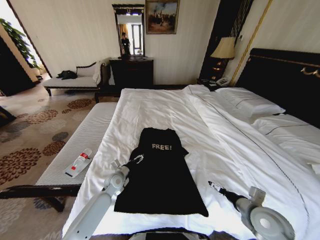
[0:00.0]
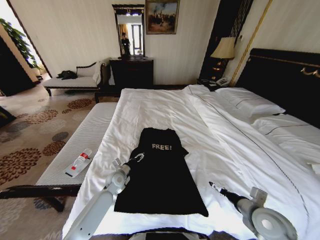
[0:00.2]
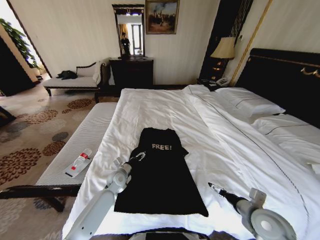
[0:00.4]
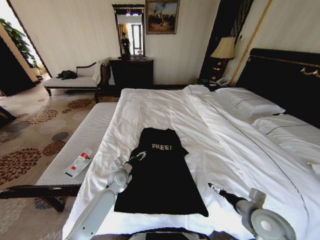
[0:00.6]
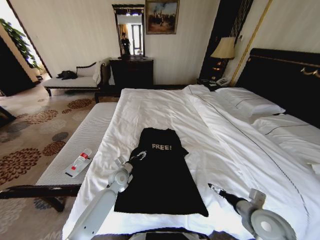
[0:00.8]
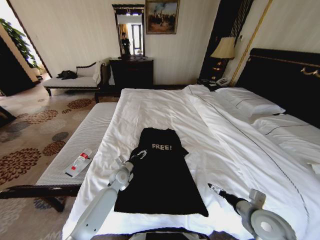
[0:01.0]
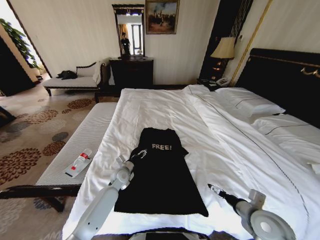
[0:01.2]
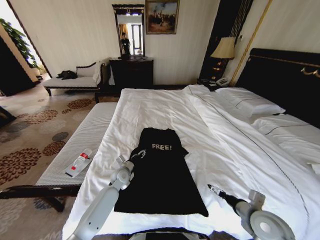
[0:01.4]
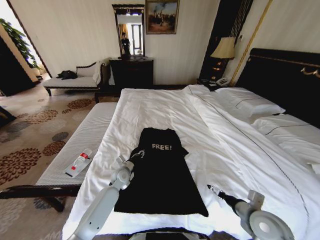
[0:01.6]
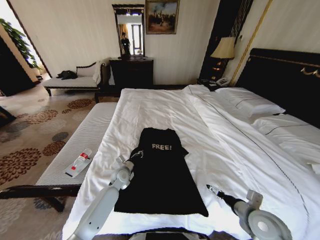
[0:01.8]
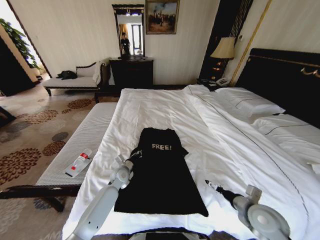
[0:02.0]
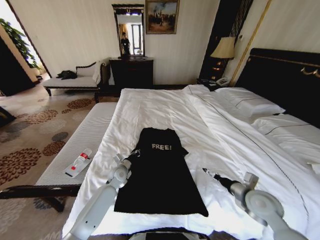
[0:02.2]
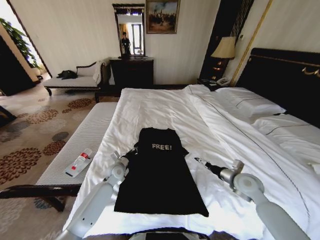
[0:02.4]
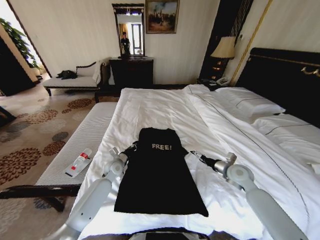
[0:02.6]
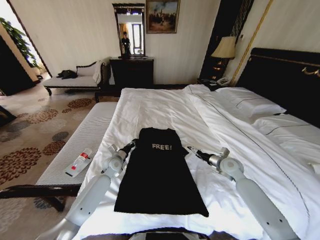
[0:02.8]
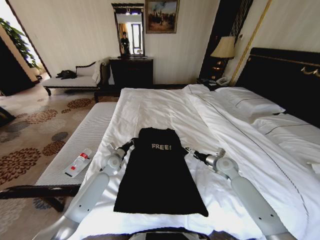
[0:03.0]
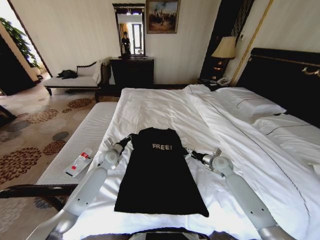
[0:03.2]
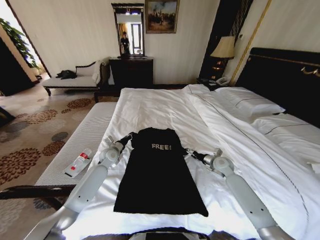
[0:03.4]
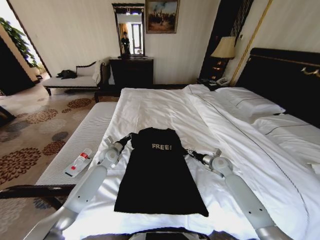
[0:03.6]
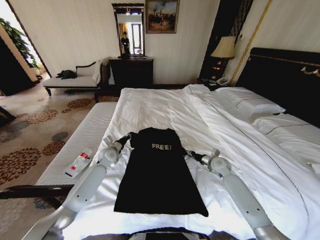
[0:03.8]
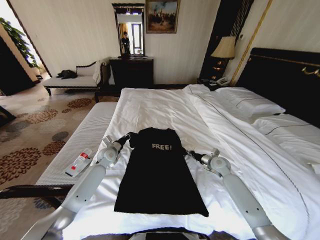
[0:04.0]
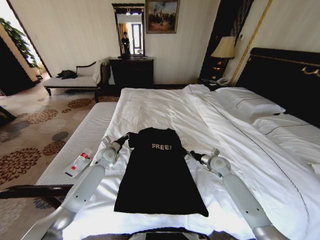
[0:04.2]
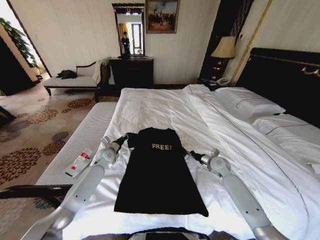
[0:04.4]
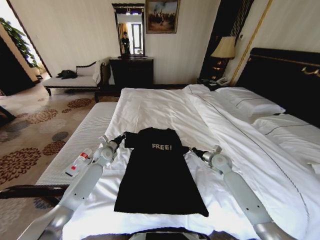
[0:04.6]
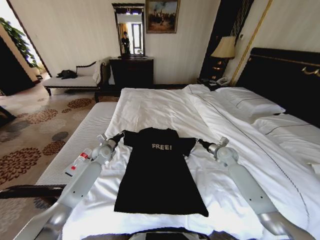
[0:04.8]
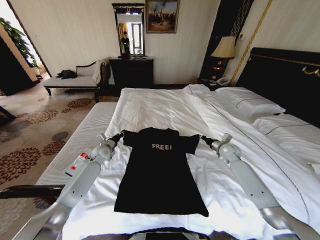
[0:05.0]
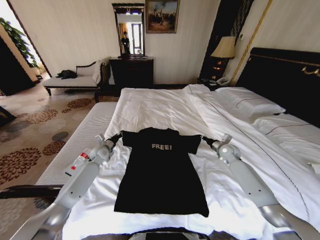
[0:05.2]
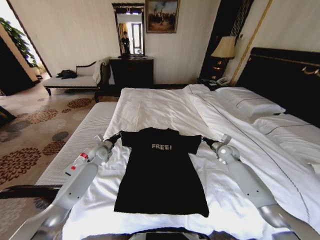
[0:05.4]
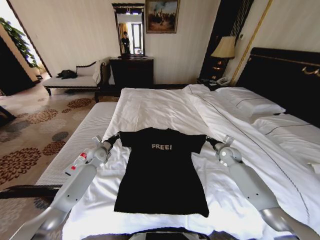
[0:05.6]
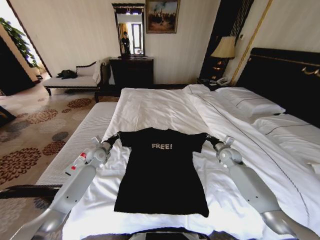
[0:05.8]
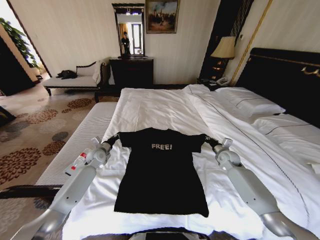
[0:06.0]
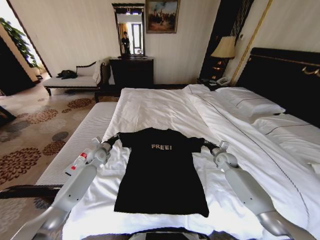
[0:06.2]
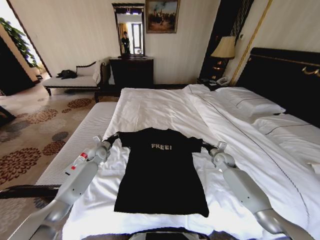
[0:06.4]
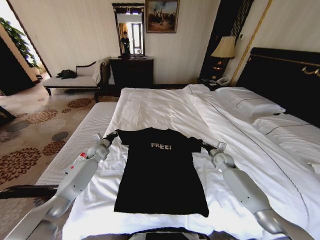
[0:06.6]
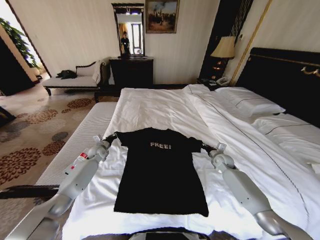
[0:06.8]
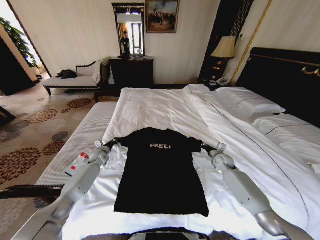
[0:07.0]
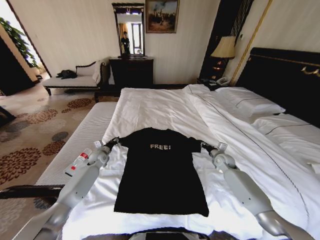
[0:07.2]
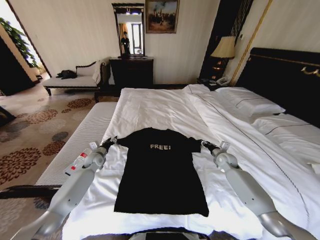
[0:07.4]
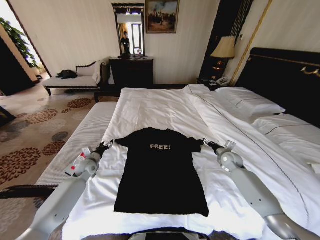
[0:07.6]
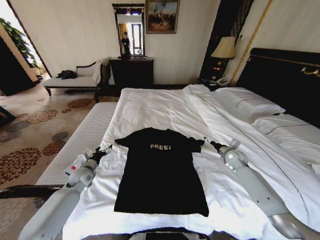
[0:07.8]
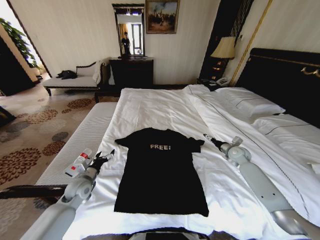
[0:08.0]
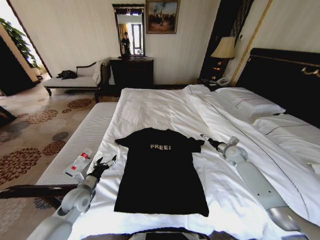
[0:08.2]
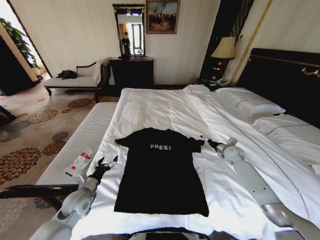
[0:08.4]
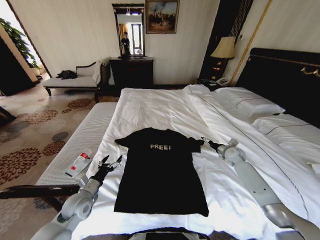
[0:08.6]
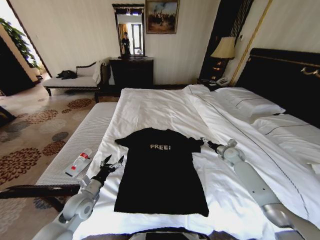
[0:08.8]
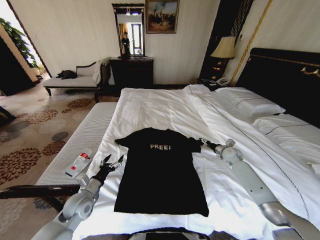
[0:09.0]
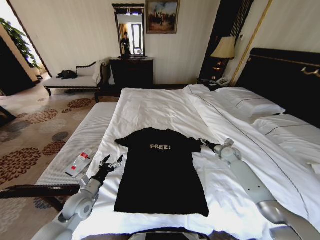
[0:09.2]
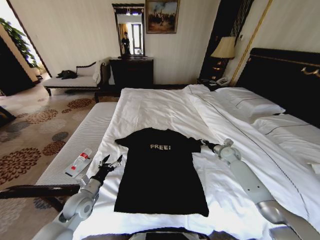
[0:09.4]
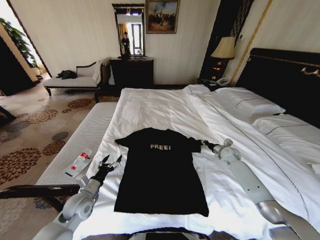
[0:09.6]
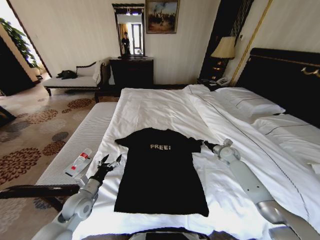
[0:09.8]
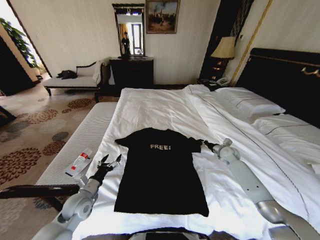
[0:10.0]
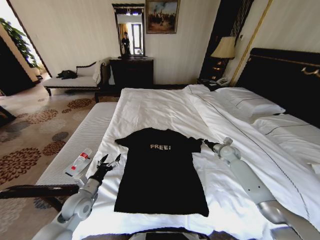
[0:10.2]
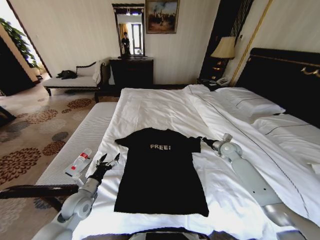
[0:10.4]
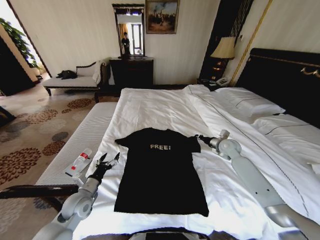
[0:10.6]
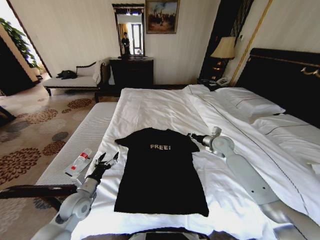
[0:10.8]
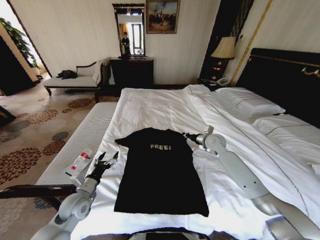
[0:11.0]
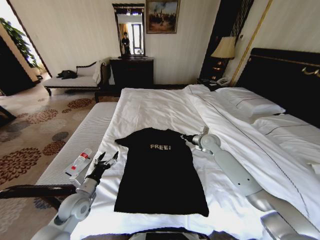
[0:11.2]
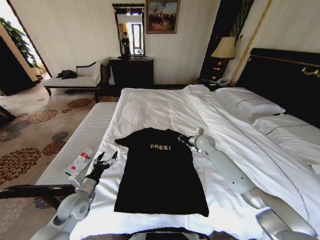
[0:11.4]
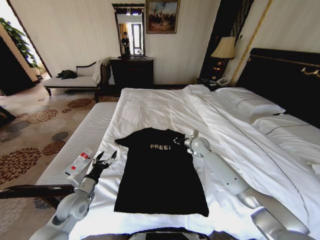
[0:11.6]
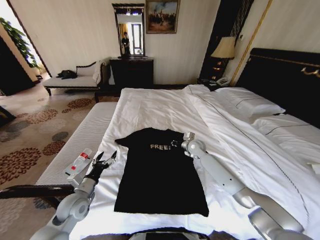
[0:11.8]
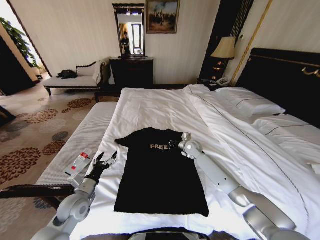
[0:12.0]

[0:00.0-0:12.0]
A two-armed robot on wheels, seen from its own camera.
Task of the whole recording: Fold the clothes on the bed.
0:00.0 to 0:01.6: The left gripper closes its fingers.
0:01.6 to 0:03.0: The right gripper is displaced forward by roughly 25 cm. The left gripper moves upward, to the left and forward, about 10 cm, and closes up.
0:03.0 to 0:04.4: The right gripper closes up. Meanwhile the left gripper moves roughly 5 cm.
0:04.4 to 0:06.0: The right gripper travels to the right by approximately 5 cm.
0:06.0 to 0:07.6: The right gripper opens; the left gripper moves approximately 5 cm, and opens.
0:07.6 to 0:09.0: The left gripper goes about 15 cm backward.
0:09.0 to 0:10.4: The right gripper shifts by approximately 5 cm, and closes its fingers.
0:10.4 to 0:12.0: The right gripper shifts roughly 20 cm to the left.

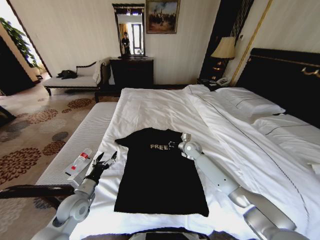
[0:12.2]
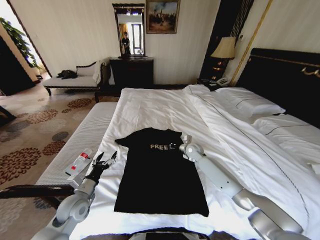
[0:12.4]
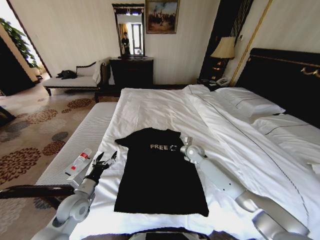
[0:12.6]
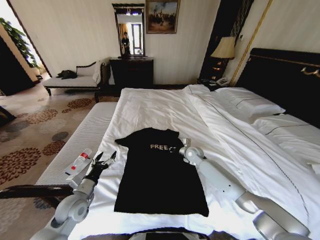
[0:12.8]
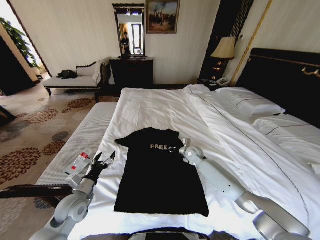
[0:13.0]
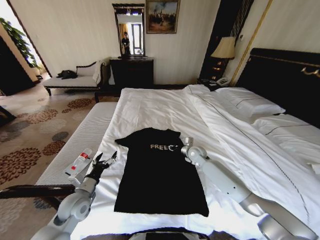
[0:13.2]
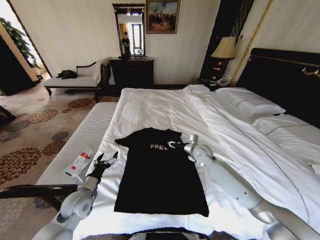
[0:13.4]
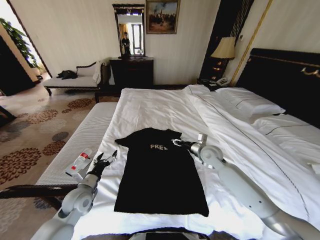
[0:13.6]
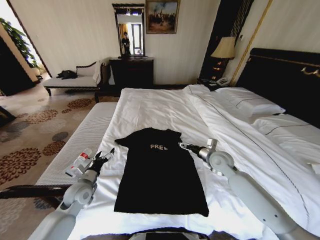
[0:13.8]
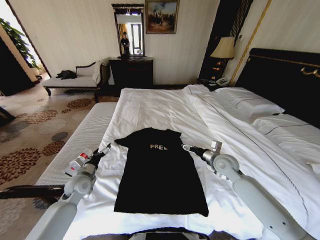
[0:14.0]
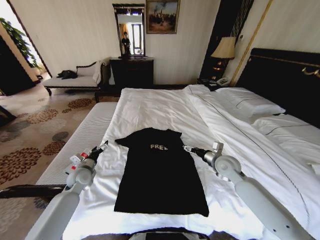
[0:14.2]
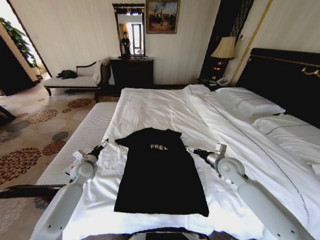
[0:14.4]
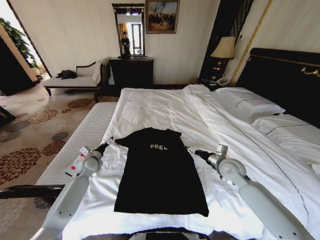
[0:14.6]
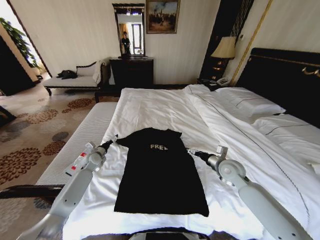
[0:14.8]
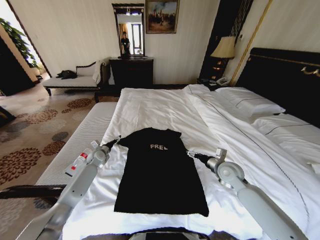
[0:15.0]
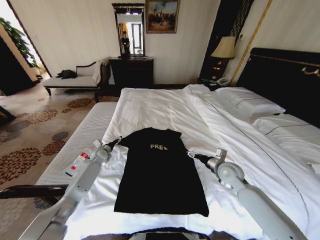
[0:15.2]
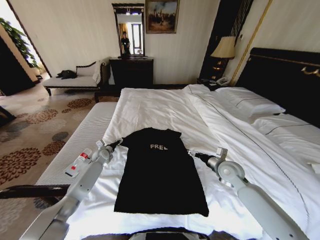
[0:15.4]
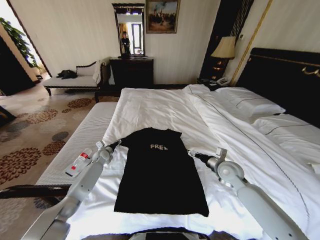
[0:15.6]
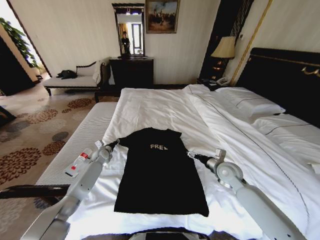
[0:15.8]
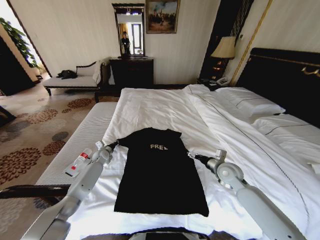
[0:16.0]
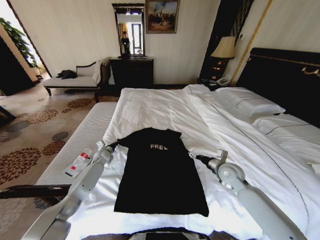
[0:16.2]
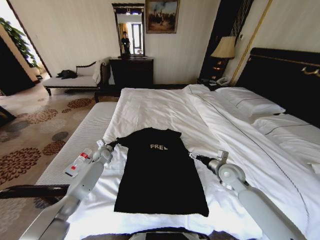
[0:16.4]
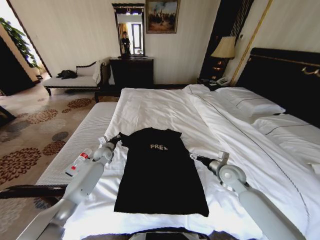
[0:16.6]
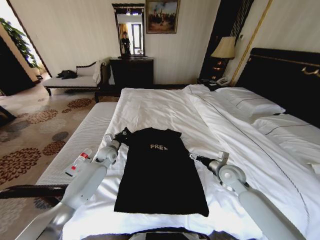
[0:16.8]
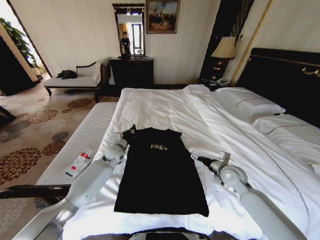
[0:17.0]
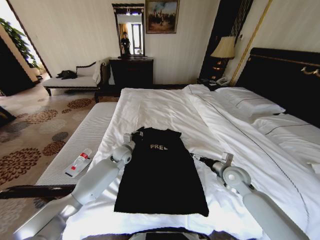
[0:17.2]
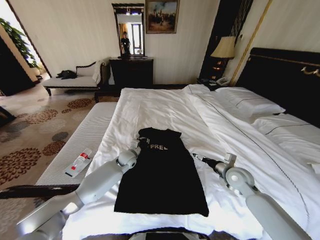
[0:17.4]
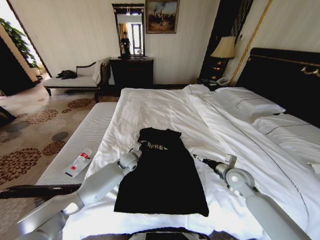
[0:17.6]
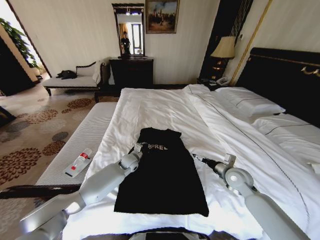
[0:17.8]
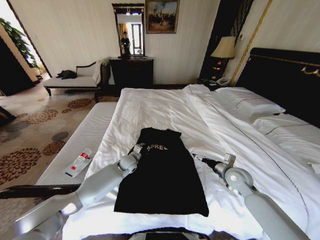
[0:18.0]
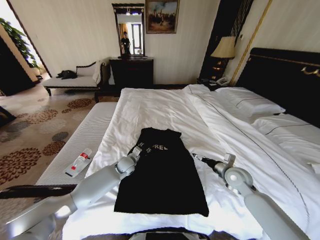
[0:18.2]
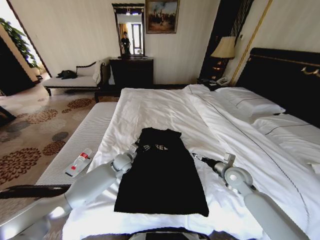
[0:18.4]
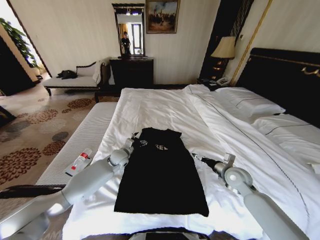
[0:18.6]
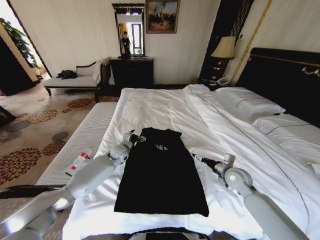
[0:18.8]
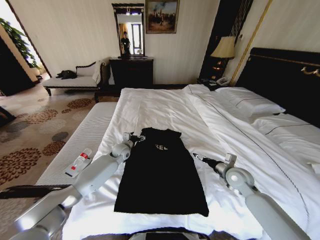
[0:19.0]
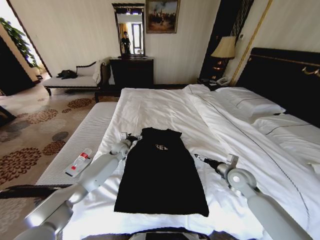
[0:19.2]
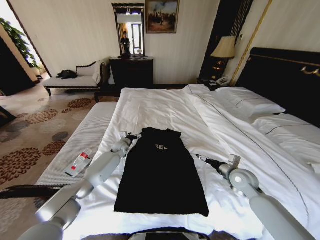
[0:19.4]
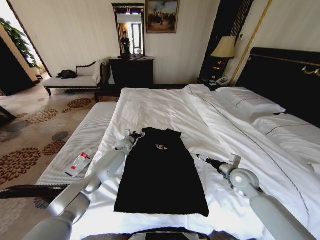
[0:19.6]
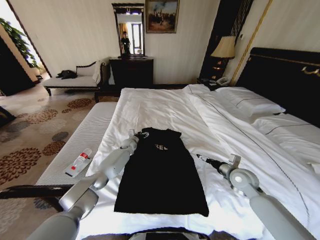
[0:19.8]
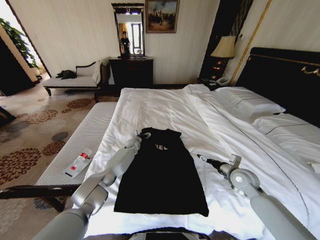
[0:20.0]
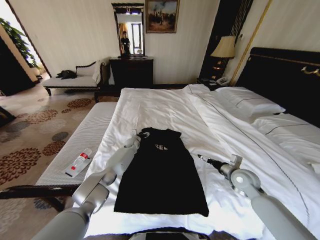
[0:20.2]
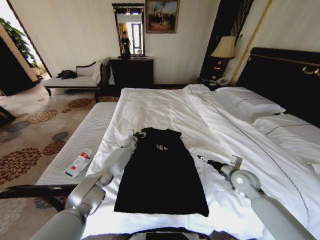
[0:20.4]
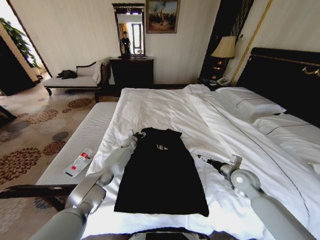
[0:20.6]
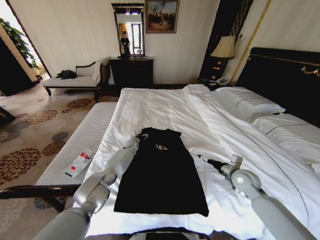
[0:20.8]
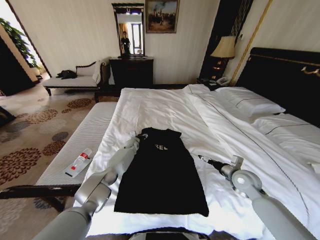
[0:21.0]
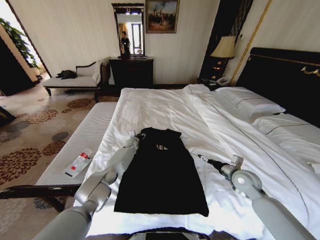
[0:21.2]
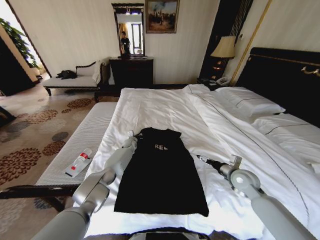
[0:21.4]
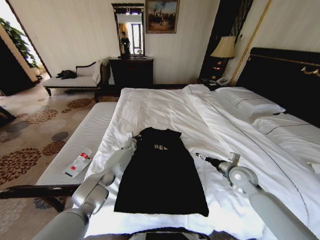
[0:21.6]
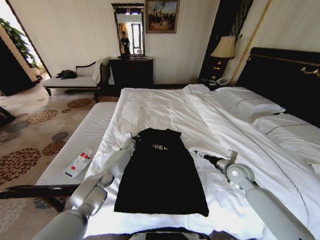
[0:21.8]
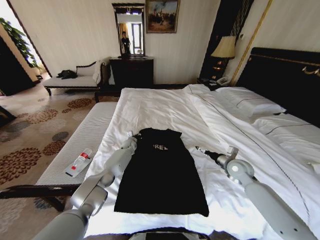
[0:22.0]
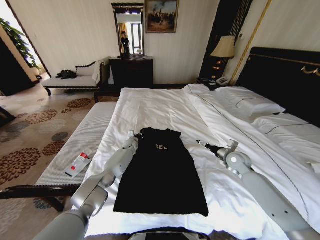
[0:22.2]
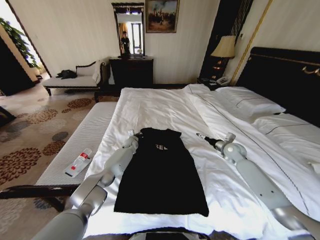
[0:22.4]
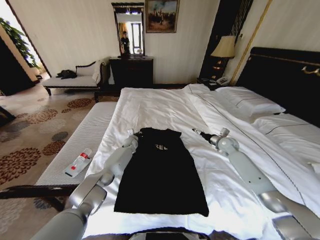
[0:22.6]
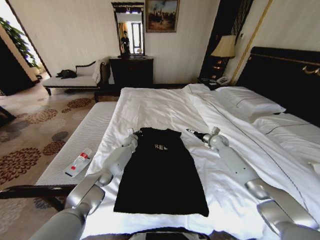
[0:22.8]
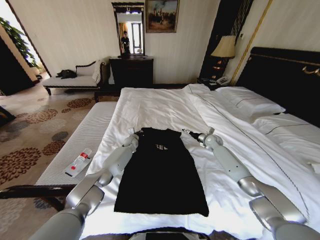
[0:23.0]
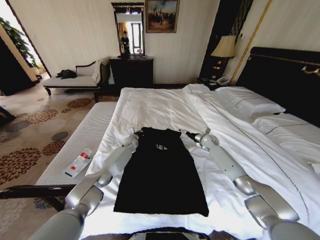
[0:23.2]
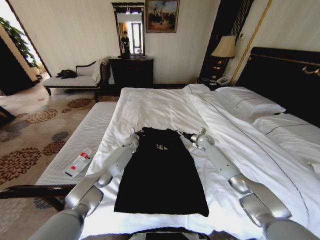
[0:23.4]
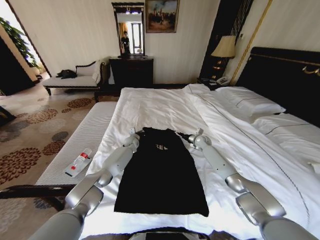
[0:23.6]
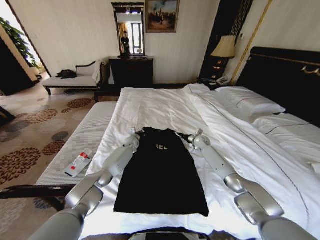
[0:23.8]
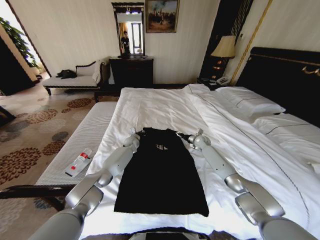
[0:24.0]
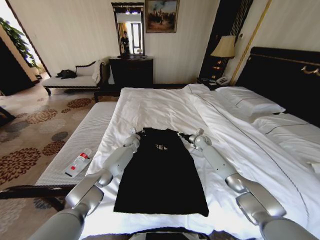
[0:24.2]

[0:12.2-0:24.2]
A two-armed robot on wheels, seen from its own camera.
Task of the whole recording: Fold the clothes on the bed.
0:12.2 to 0:13.8: The right gripper is displaced backward, to the right and upward by about 15 cm, and opens its fingers.
0:13.8 to 0:15.2: The left gripper goes some 20 cm forward; the right gripper shifts by approximately 5 cm.
0:15.2 to 0:16.6: The left gripper closes.
0:16.6 to 0:18.2: The left gripper goes roughly 15 cm to the right and backward, and opens its fingers.
0:18.2 to 0:19.8: The left gripper is displaced forward by approximately 15 cm, and opens.
0:19.8 to 0:21.2: The grippers move only a little.
0:21.2 to 0:22.6: The left gripper closes up, while the right gripper shifts about 20 cm forward.
0:22.6 to 0:24.2: The right gripper shifts some 15 cm to the left, forward and downward, and closes.
